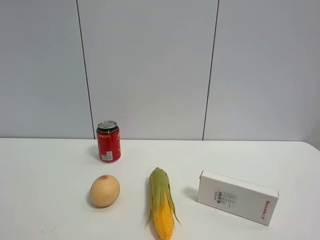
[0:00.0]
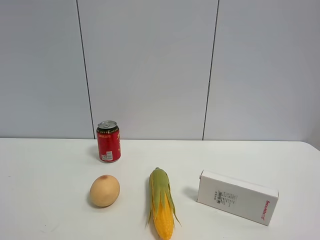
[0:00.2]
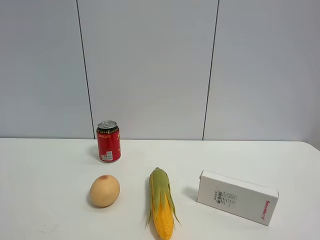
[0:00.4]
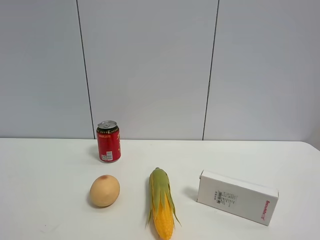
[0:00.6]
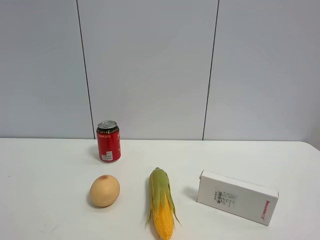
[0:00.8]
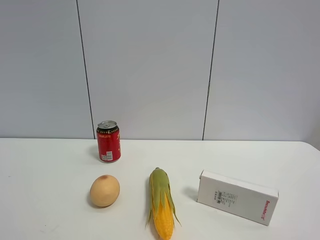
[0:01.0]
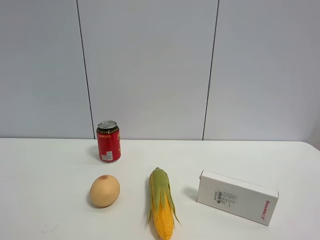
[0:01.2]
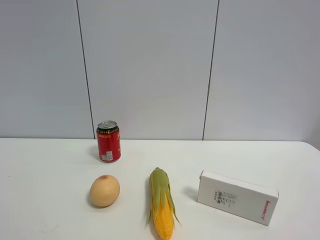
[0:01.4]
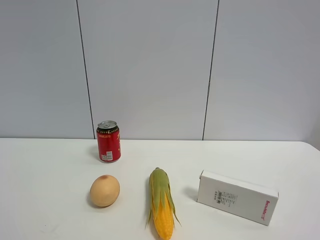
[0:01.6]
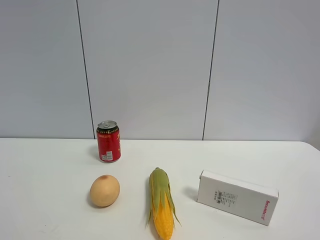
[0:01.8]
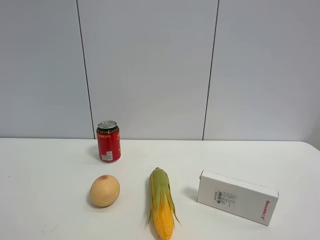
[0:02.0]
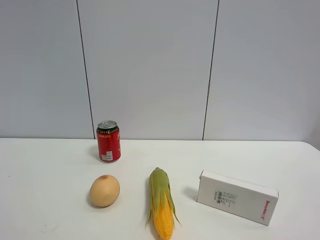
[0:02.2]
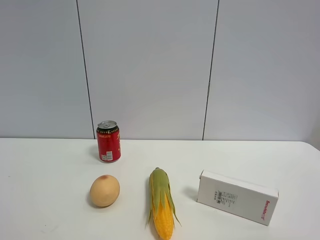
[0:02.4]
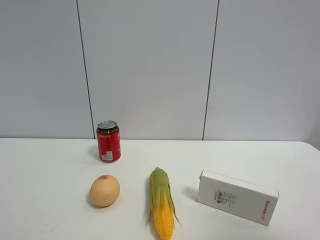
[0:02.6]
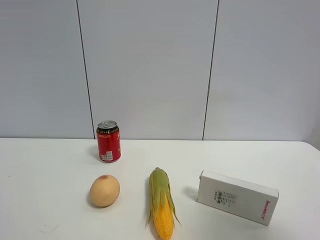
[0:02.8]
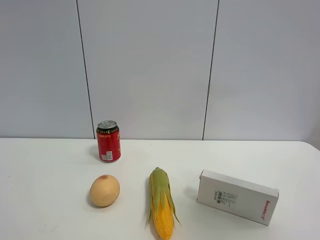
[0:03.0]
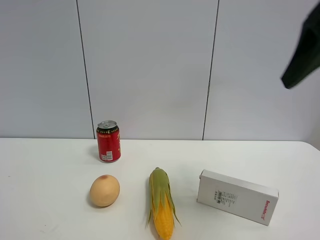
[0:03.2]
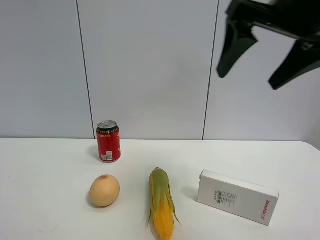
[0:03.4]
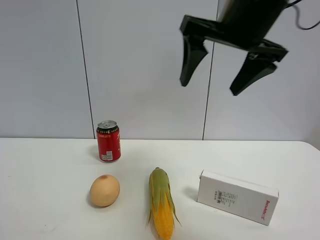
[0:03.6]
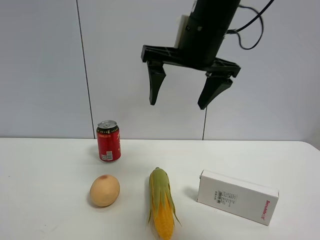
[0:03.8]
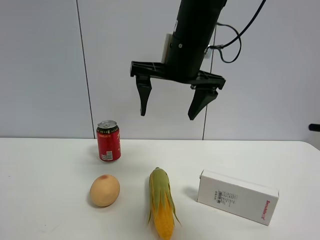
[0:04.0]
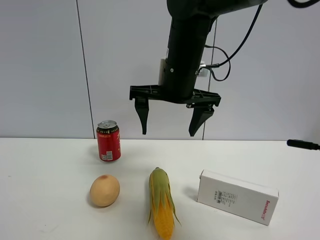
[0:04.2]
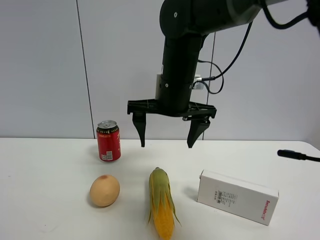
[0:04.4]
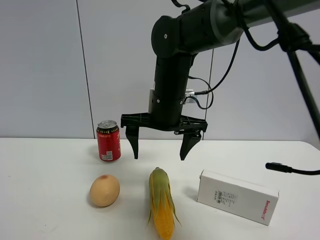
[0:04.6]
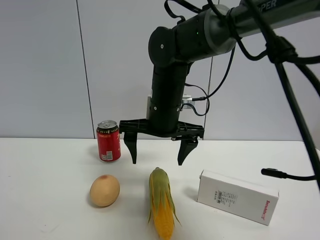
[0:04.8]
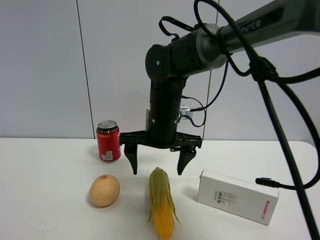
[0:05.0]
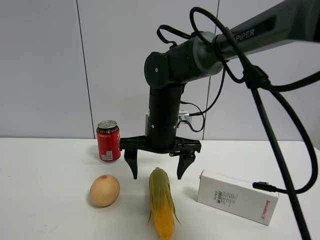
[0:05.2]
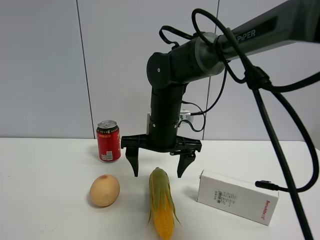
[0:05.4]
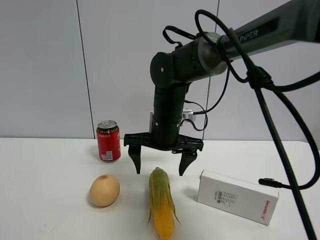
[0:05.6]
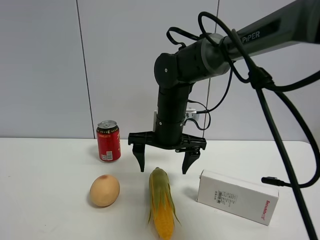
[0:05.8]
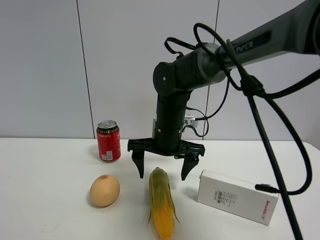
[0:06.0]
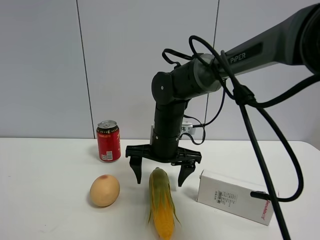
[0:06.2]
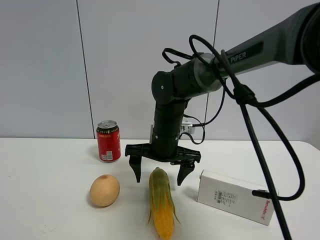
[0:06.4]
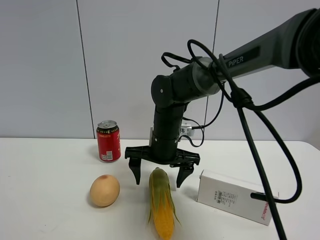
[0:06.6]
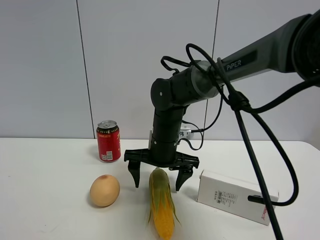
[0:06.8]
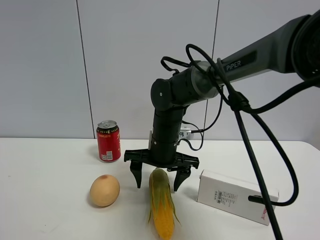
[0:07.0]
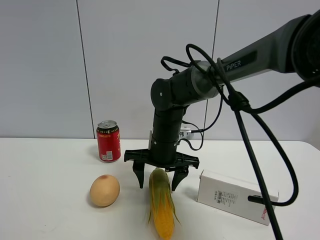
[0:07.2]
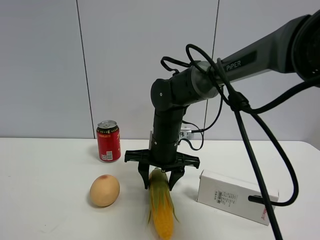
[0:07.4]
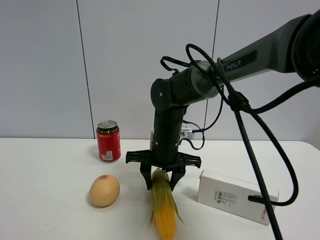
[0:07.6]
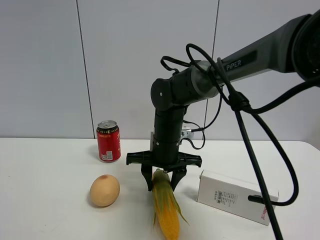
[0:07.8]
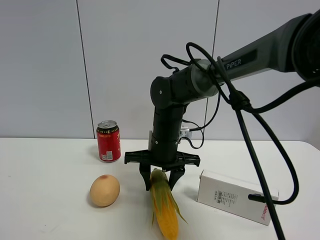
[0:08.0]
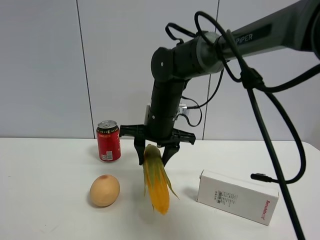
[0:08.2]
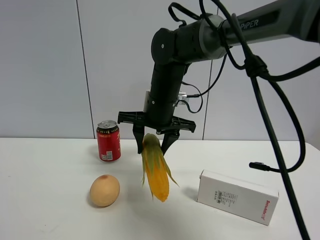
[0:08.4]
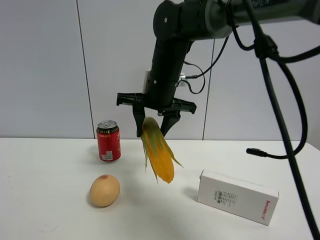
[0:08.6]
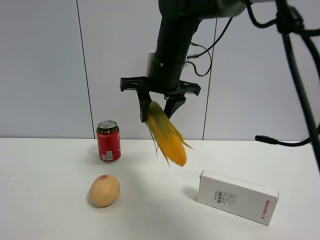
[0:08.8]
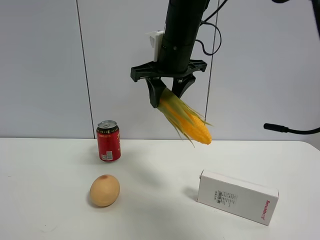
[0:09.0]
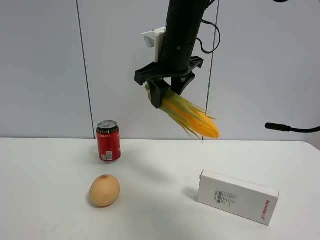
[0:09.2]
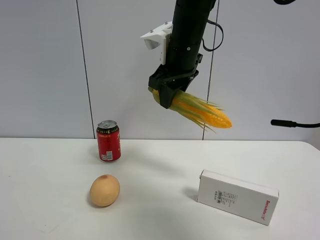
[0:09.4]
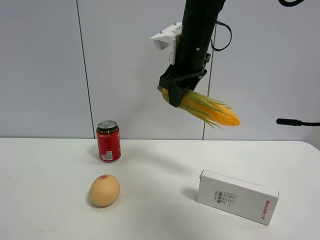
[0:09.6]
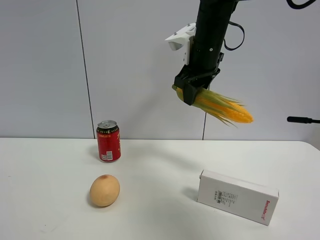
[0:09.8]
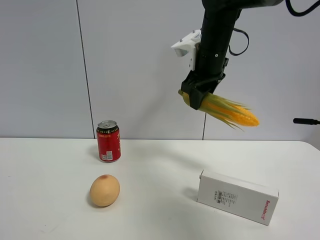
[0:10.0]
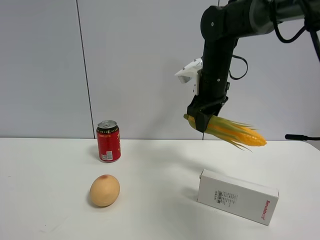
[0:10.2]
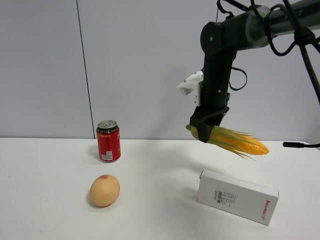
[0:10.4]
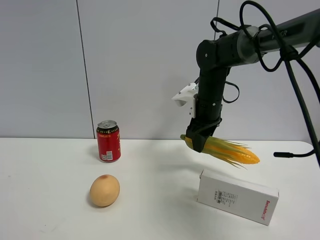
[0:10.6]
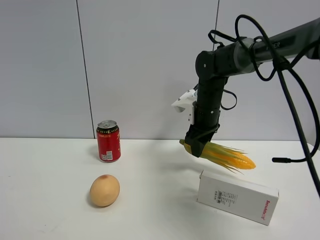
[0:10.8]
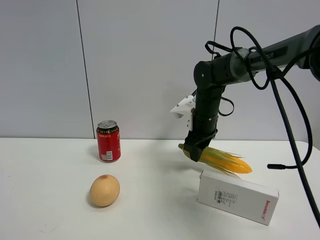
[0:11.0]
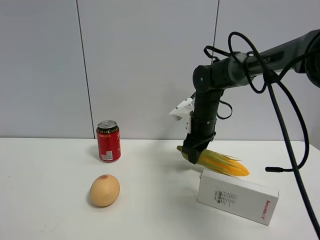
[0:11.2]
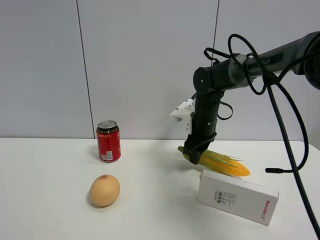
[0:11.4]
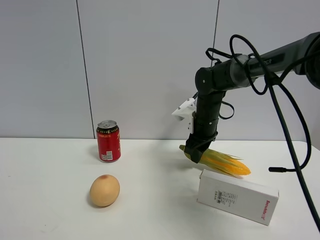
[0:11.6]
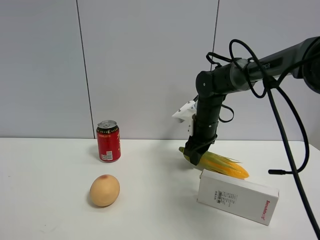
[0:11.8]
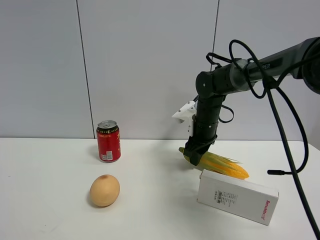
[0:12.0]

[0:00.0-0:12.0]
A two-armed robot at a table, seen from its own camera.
Task of the whole recording: the gripper move the object.
Step, 0:00.0 to 0:07.6: Grasp the corn with the right gripper.
0:00.0 to 0:01.6: The two grippers keep their place.
0:01.6 to 0:03.0: The right gripper heads forward and upward, covering approximately 20 cm.
0:03.0 to 0:04.4: The right gripper heads to the left, forward and downward, covering roughly 35 cm.
0:04.4 to 0:06.0: The right gripper is displaced downward by approximately 10 cm.
0:06.0 to 0:07.6: The right gripper closes its fingers.
0:07.6 to 0:09.0: The right gripper shifts approximately 20 cm upward.
0:09.0 to 0:10.4: The right gripper heads downward, to the right and forward, covering about 15 cm.
0:10.4 to 0:12.0: The right gripper travels downward by some 10 cm.

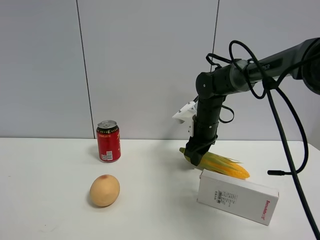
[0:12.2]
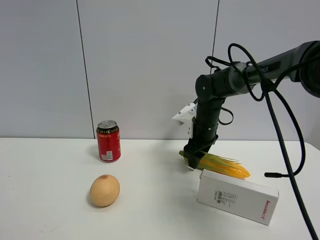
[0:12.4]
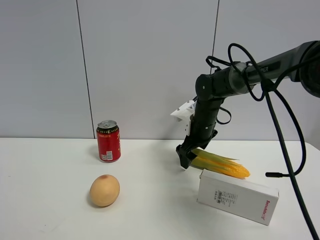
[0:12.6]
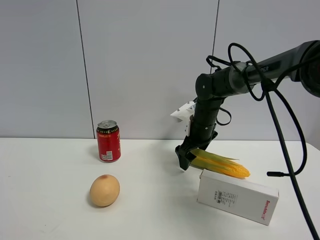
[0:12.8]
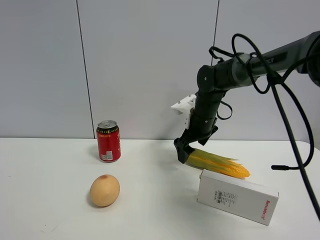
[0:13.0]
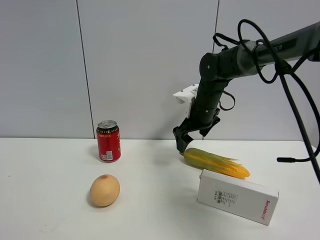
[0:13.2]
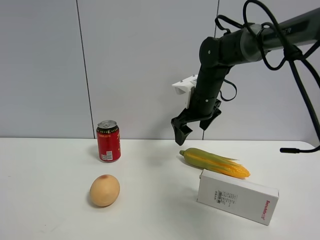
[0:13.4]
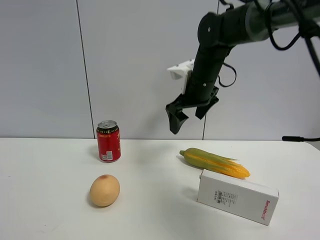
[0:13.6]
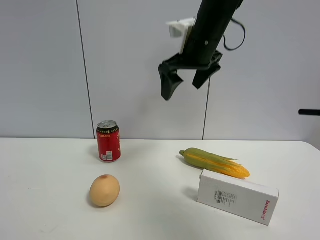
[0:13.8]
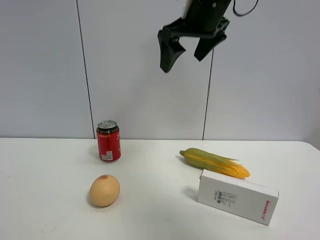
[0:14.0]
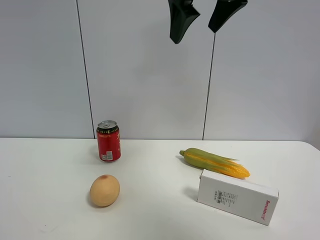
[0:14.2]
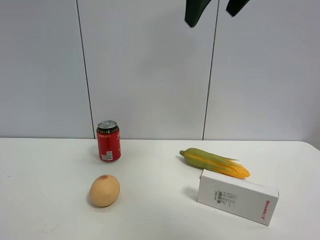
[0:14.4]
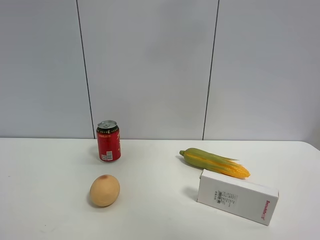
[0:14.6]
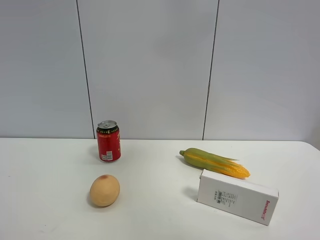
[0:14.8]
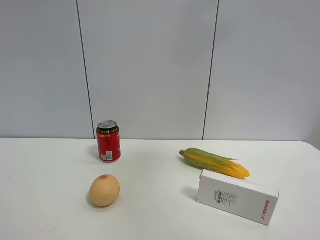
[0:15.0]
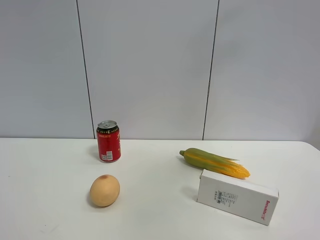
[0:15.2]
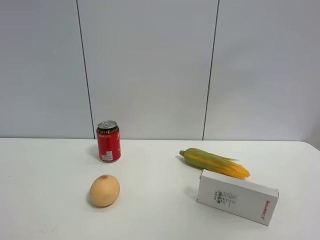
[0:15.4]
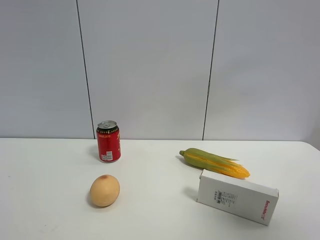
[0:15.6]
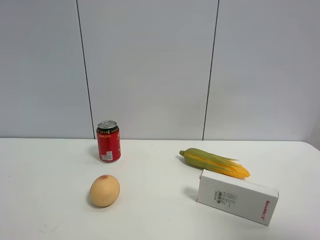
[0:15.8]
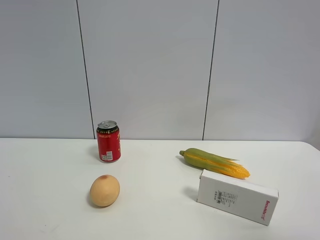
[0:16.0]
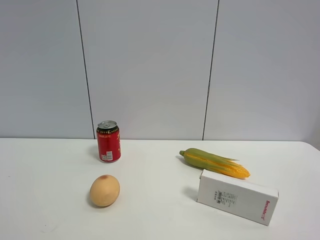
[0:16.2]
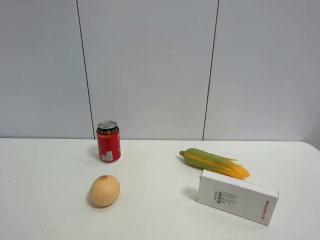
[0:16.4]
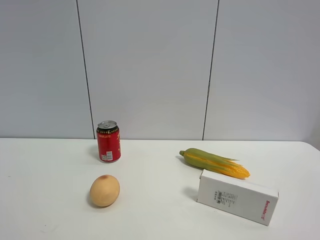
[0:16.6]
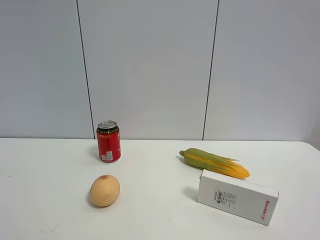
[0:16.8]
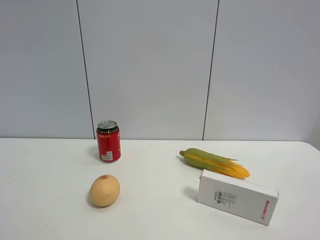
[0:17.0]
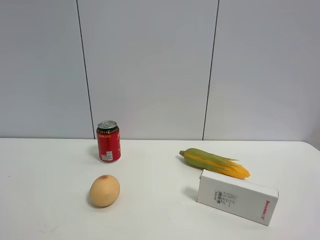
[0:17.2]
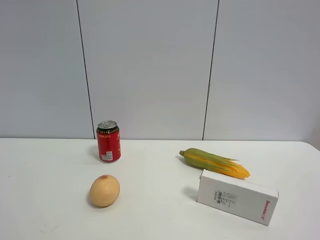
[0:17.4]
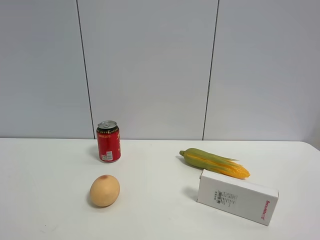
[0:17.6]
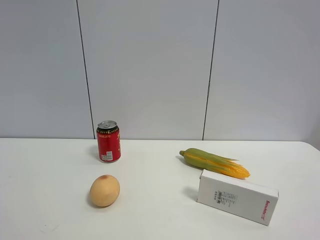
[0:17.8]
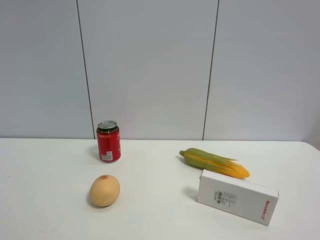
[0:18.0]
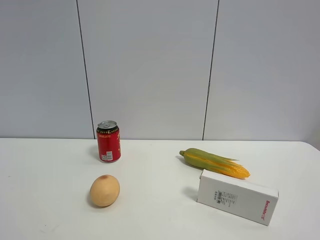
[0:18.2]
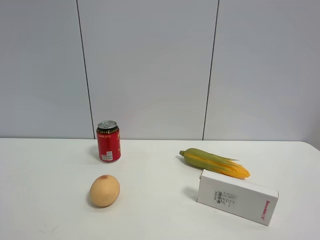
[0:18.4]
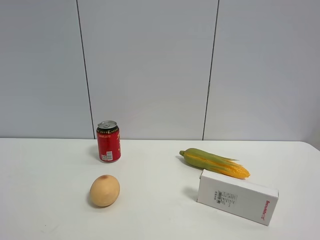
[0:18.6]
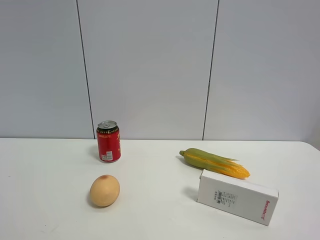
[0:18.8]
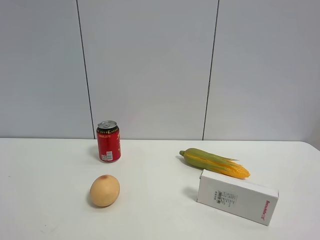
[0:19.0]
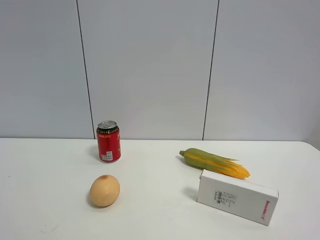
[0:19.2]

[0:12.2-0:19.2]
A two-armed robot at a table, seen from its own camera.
Task of the whole recording: the gripper move the object.
0:12.2 to 0:13.6: The right gripper is displaced upward by approximately 10 cm, and opens.
0:13.6 to 0:15.0: The right gripper moves upward, backward and to the right, approximately 35 cm.
0:15.0 to 0:16.4: The right gripper is displaced backward and downward by some 30 cm.
0:17.8 to 0:19.2: The two grippers keep their place.

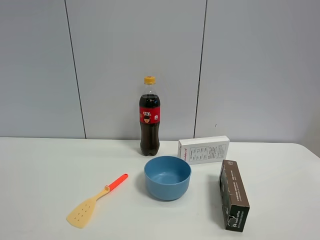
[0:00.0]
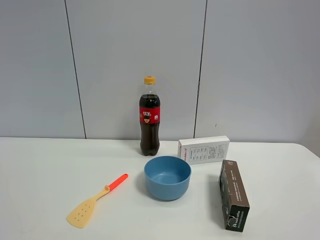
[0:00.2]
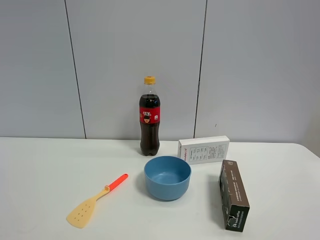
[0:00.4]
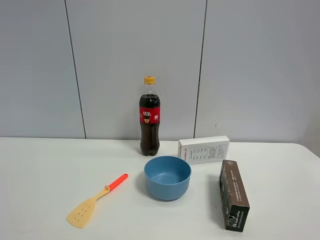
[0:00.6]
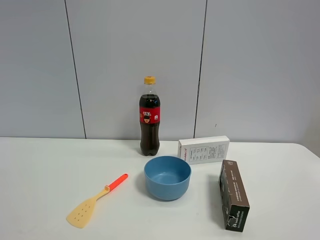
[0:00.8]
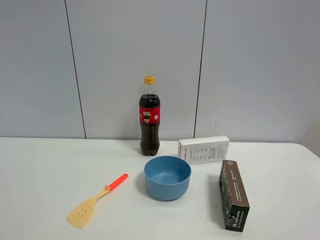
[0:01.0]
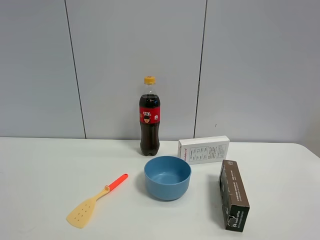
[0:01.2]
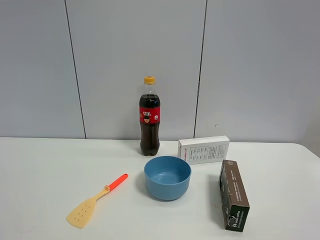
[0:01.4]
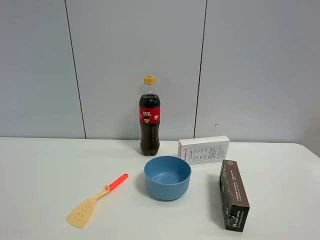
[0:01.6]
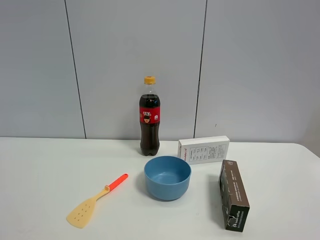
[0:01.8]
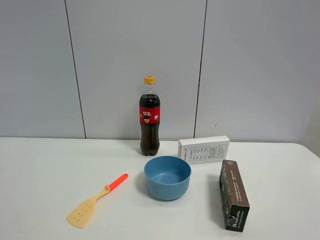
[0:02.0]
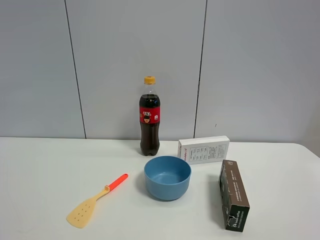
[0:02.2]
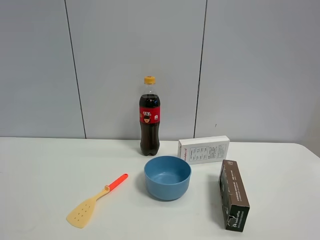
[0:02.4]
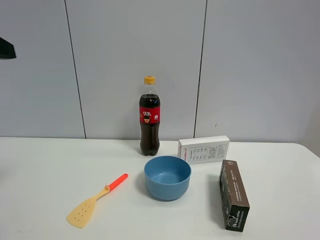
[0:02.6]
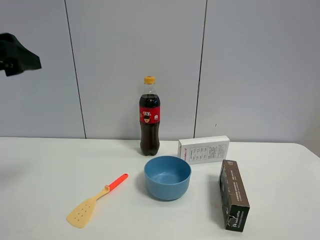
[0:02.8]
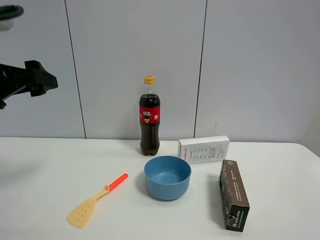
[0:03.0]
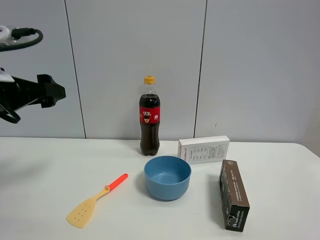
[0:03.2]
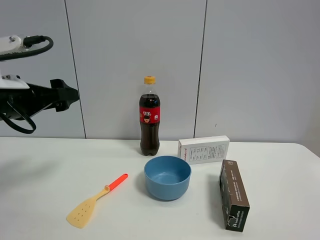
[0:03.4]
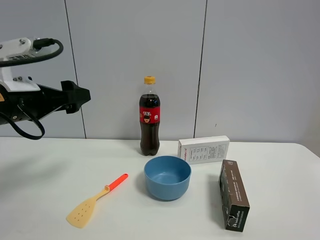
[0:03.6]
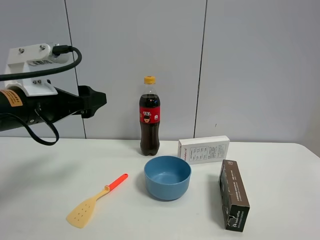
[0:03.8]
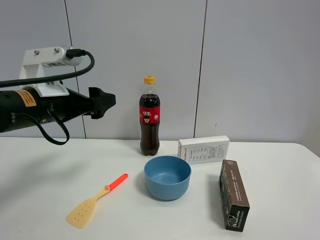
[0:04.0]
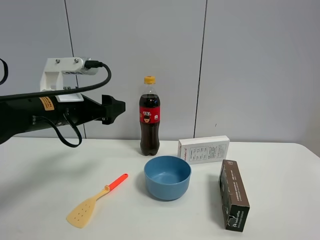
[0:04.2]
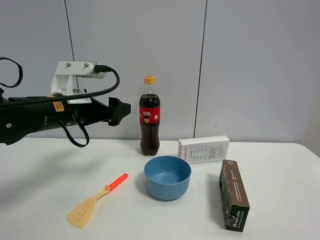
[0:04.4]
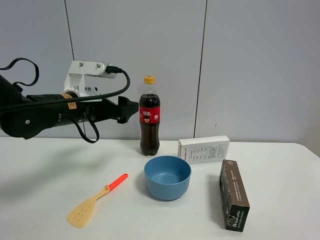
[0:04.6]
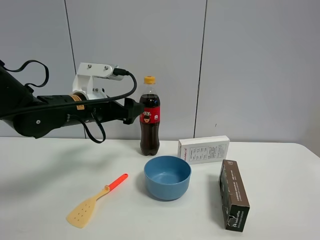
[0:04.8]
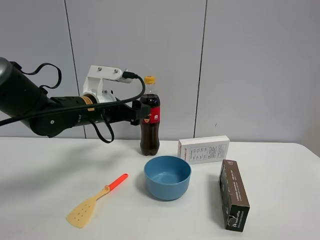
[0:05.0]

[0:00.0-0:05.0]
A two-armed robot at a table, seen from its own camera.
Task of the whole recording: the gripper move the object.
0:01.6 to 0:03.4: The left gripper travels forward by about 25 cm.
0:03.4 to 0:05.0: The left gripper moves to the right and forward, some 15 cm.
